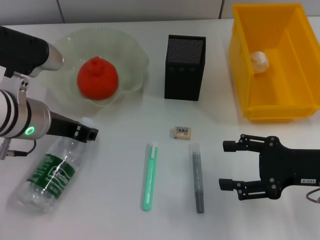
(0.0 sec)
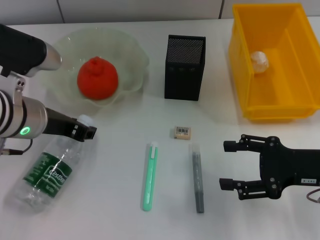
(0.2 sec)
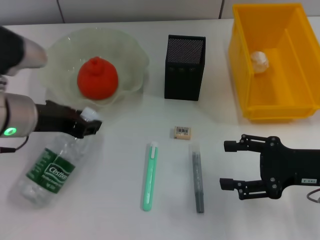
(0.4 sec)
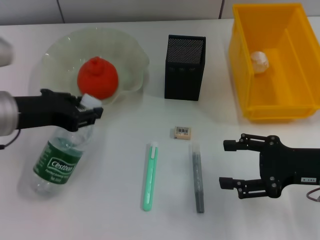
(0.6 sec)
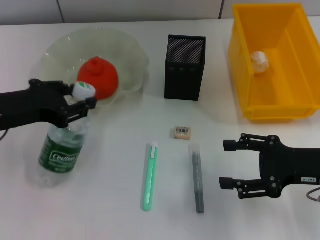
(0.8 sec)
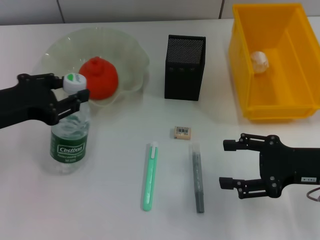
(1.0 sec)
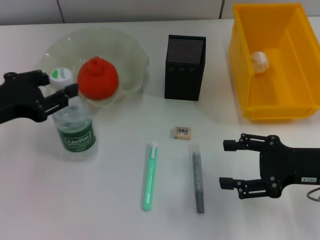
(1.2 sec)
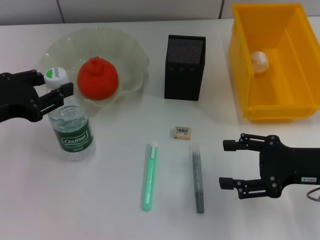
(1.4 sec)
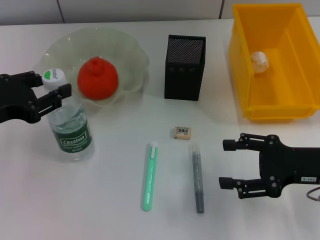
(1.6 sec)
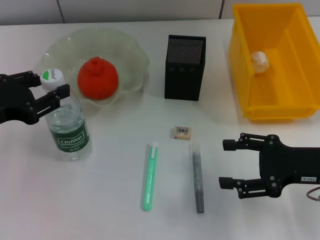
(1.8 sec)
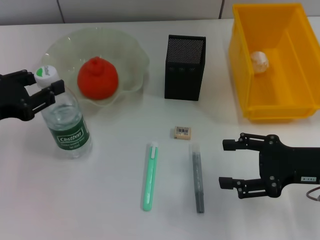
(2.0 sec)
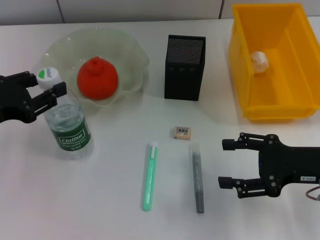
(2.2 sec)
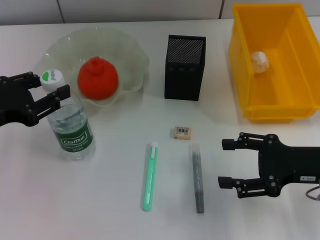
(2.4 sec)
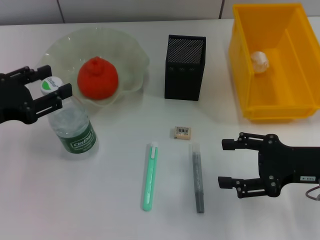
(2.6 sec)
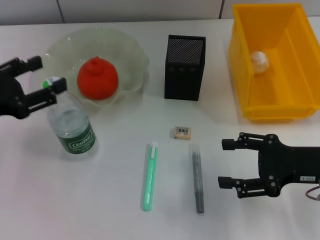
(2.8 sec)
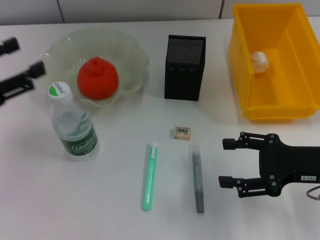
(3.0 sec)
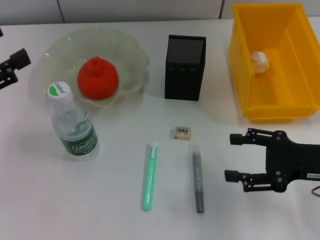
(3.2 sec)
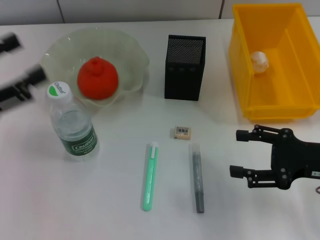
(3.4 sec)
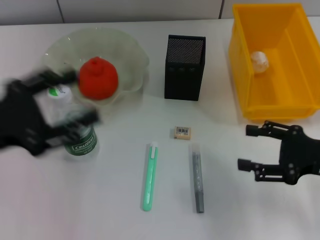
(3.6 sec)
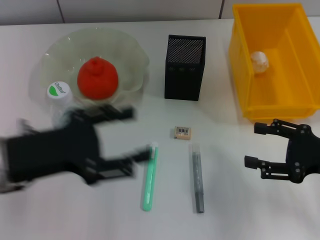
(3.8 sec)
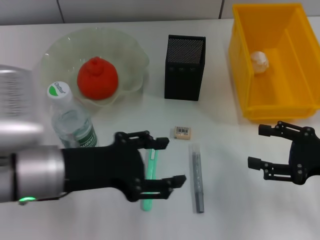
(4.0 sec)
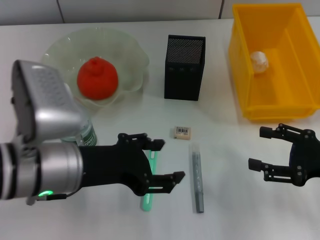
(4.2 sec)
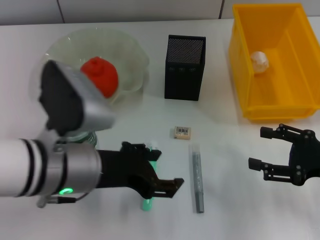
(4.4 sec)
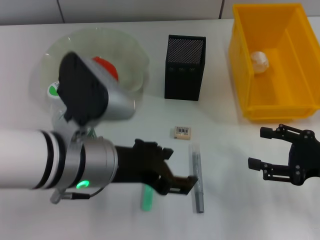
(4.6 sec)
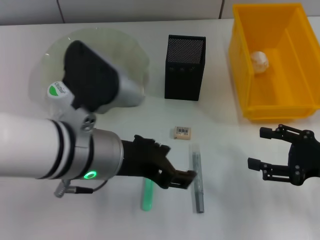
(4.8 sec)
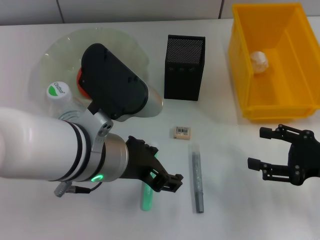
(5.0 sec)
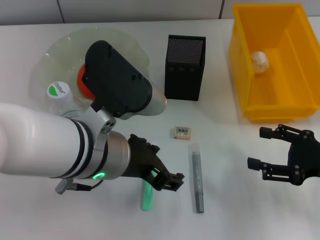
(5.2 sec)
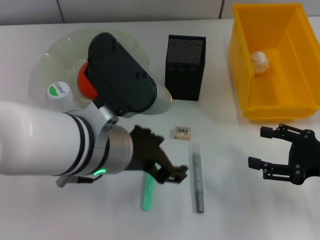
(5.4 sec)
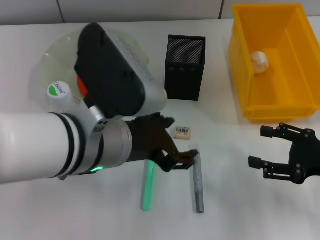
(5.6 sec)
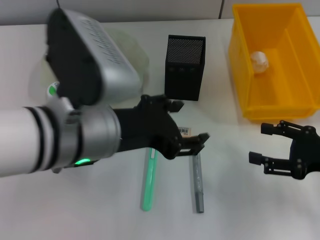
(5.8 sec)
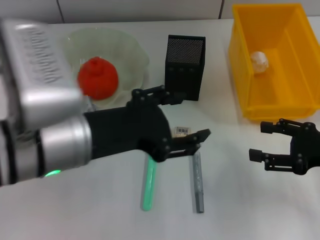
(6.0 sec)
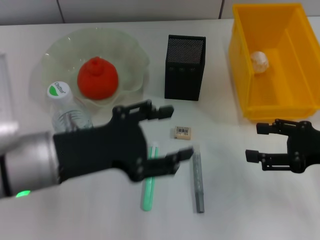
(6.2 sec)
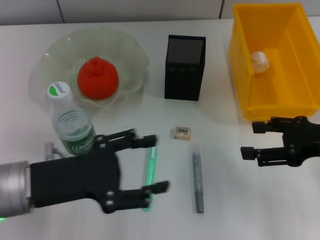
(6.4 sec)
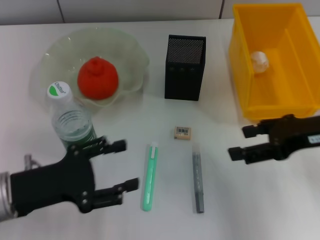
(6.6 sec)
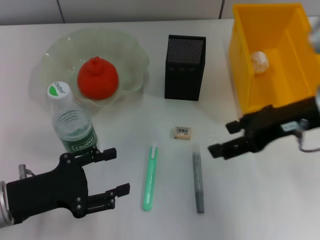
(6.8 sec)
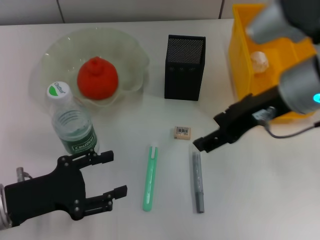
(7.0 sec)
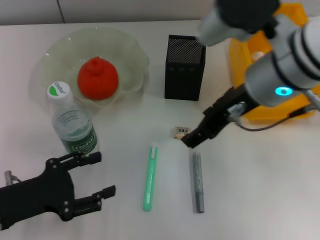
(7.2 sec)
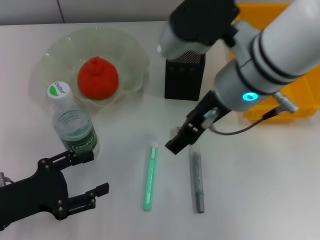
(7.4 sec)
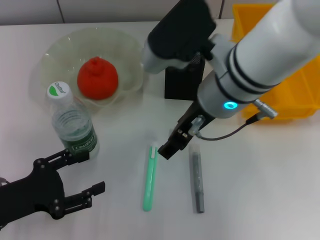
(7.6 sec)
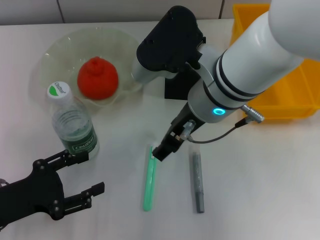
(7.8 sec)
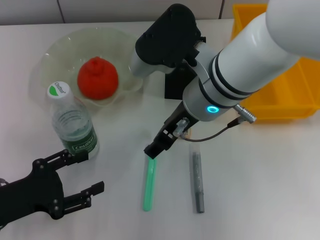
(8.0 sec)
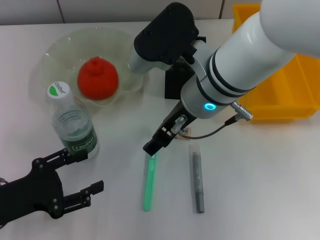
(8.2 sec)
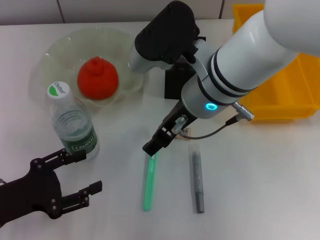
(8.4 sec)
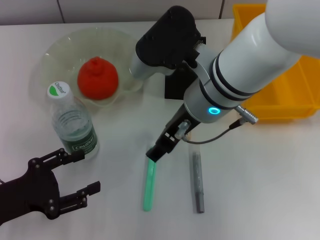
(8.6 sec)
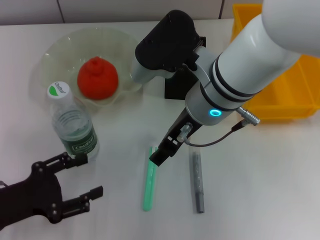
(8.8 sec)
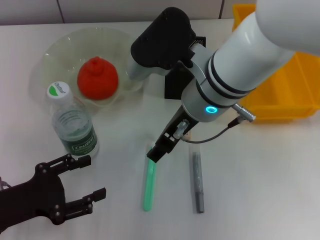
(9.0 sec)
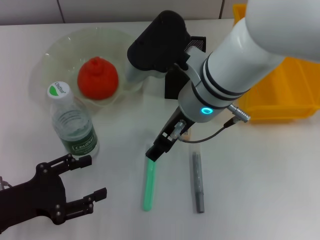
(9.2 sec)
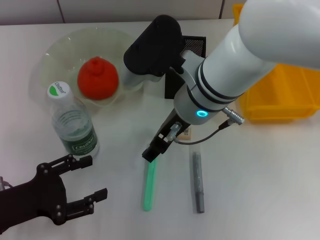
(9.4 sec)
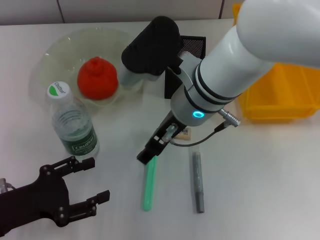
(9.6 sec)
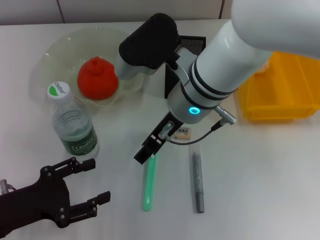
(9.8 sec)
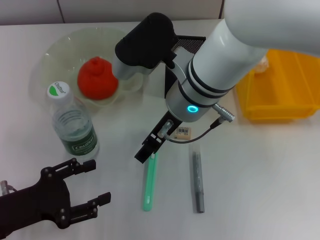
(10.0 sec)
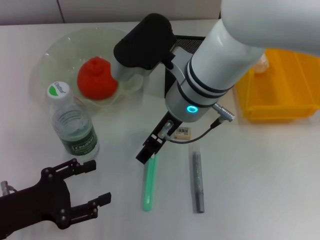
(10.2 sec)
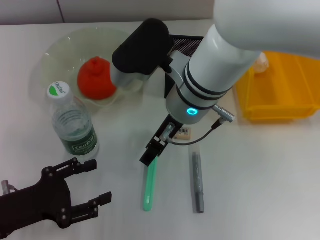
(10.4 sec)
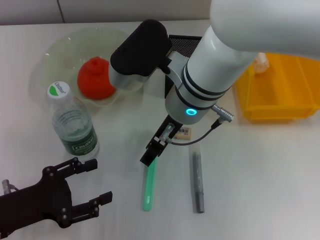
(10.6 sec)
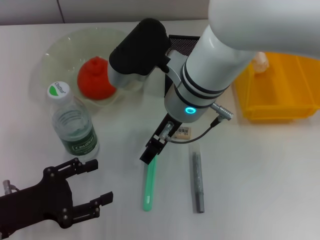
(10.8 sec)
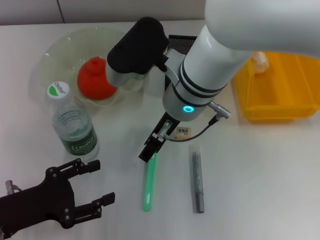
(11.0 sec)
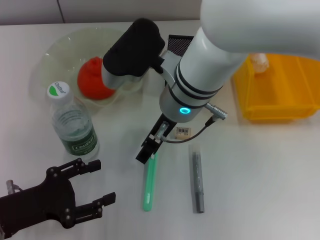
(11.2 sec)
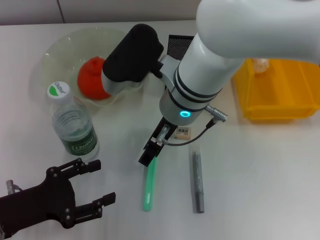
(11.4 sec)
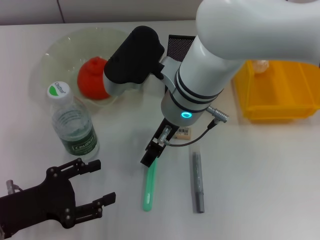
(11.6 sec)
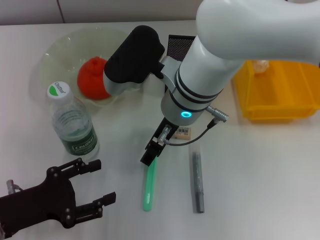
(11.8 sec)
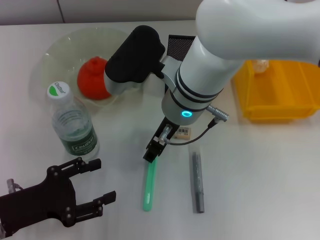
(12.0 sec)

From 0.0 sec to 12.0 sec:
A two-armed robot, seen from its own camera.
Step, from 0.0 sec to 2.4 sec: Place the water bottle on the table with the left hand.
From 0.0 sec to 1.6 sec: The left gripper goes some 10 cm to the left and backward.
From 1.6 sec to 3.0 sec: The left gripper opens its fingers.
From 3.0 sec to 4.4 sec: The left gripper heads to the right, covering approximately 20 cm.
From 6.0 sec to 7.6 sec: The left gripper moves to the left and downward, roughly 20 cm; the right gripper travels to the left and upward by approximately 25 cm.
From 7.6 sec to 10.4 sec: The grippers make only small movements.
From 10.4 sec to 12.0 sec: Both grippers stay about where they are.

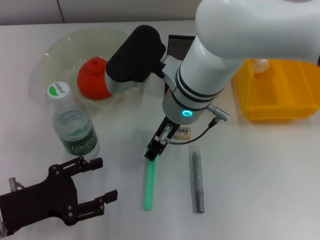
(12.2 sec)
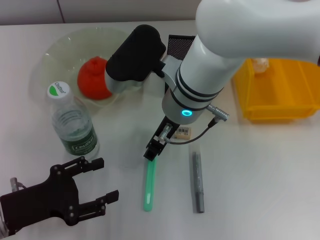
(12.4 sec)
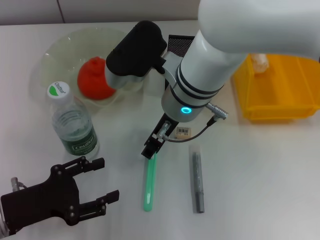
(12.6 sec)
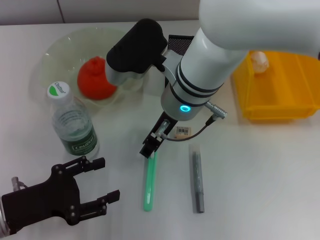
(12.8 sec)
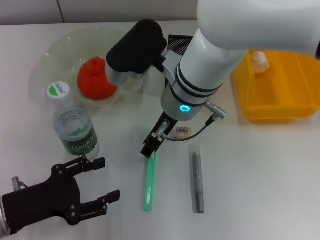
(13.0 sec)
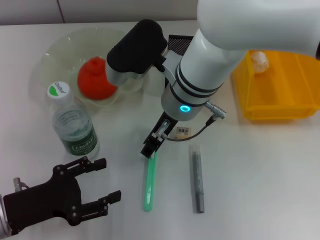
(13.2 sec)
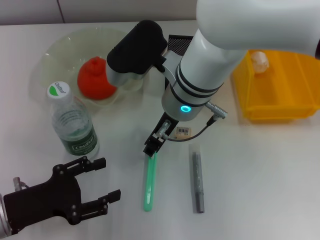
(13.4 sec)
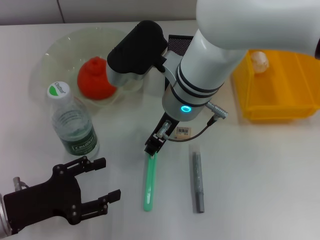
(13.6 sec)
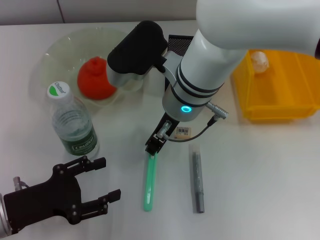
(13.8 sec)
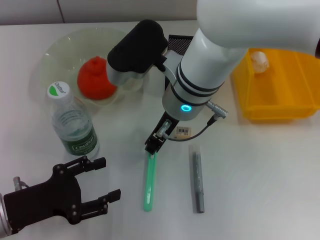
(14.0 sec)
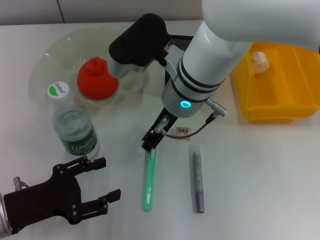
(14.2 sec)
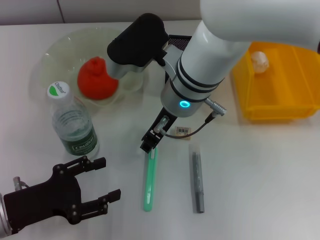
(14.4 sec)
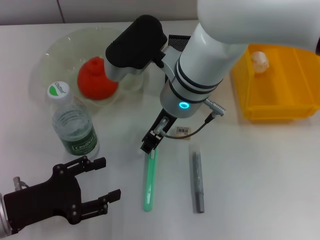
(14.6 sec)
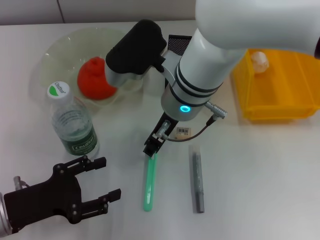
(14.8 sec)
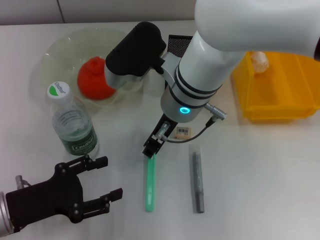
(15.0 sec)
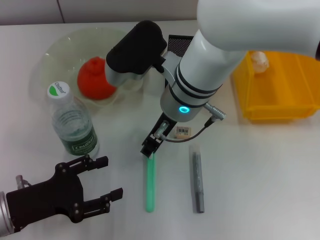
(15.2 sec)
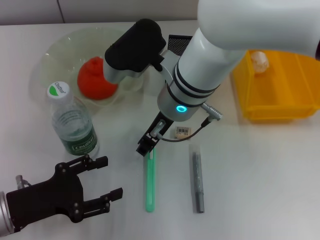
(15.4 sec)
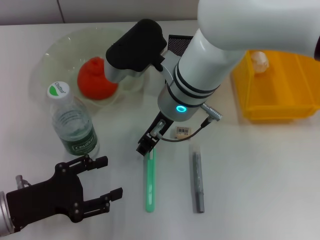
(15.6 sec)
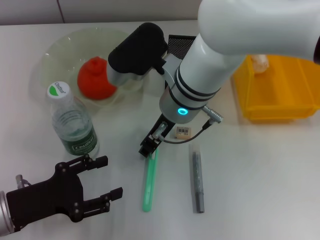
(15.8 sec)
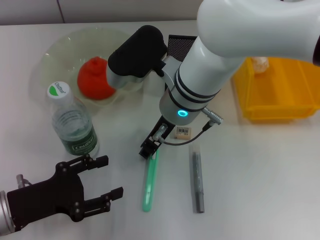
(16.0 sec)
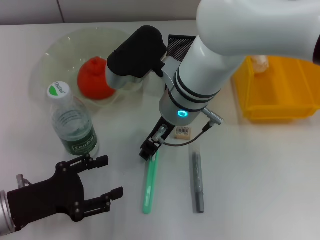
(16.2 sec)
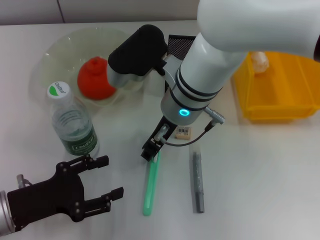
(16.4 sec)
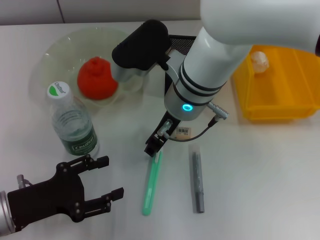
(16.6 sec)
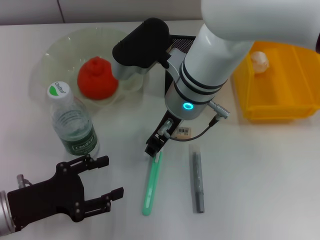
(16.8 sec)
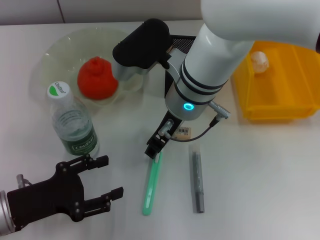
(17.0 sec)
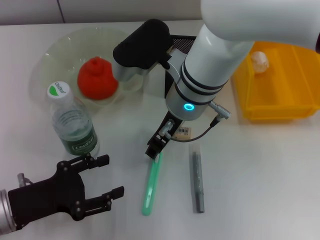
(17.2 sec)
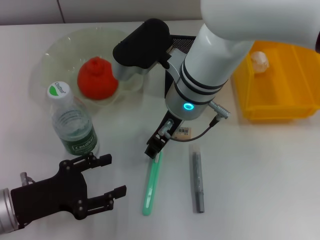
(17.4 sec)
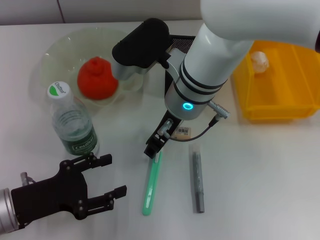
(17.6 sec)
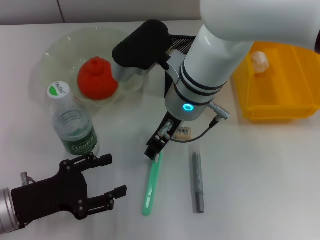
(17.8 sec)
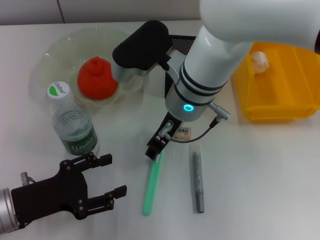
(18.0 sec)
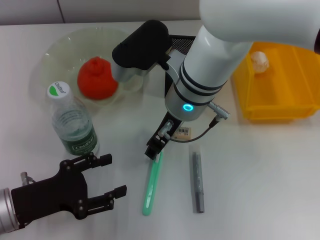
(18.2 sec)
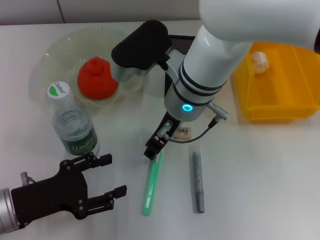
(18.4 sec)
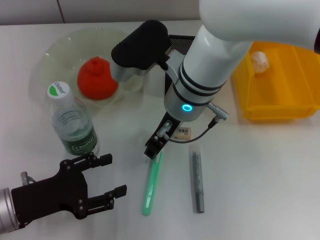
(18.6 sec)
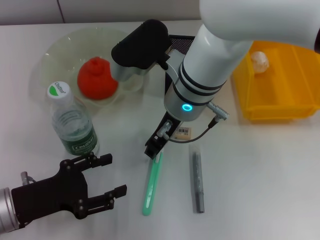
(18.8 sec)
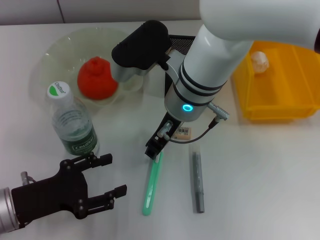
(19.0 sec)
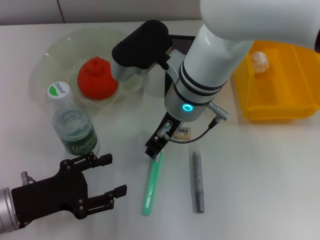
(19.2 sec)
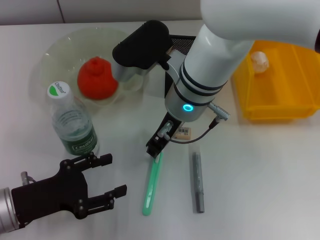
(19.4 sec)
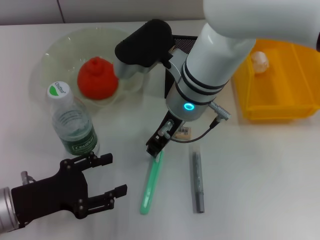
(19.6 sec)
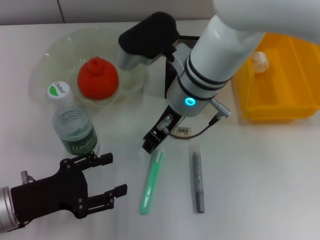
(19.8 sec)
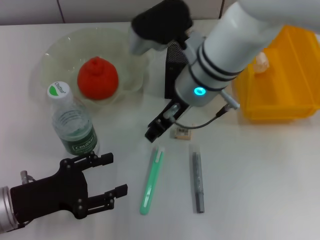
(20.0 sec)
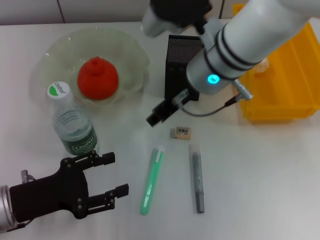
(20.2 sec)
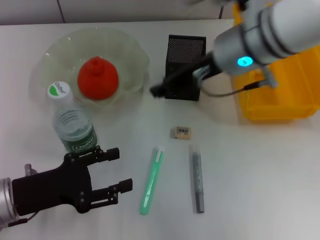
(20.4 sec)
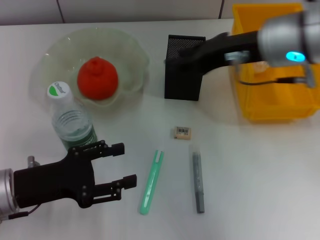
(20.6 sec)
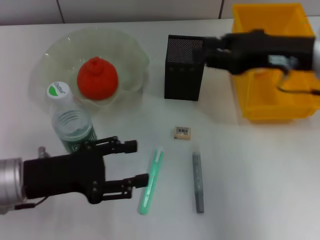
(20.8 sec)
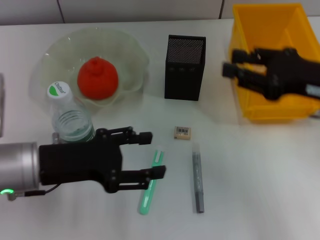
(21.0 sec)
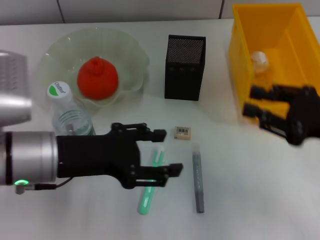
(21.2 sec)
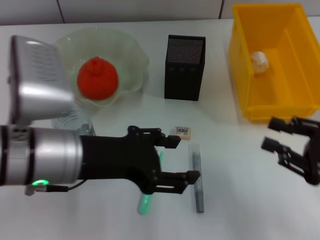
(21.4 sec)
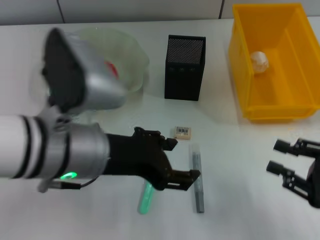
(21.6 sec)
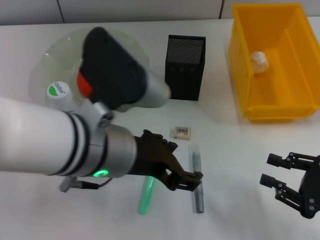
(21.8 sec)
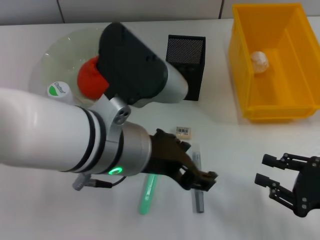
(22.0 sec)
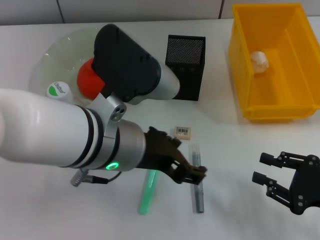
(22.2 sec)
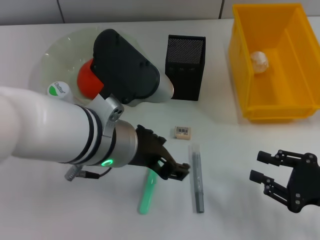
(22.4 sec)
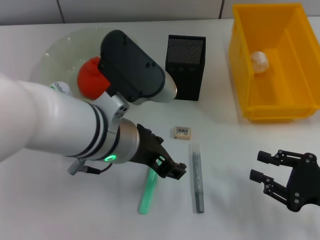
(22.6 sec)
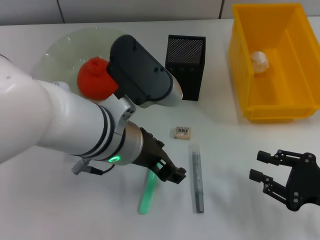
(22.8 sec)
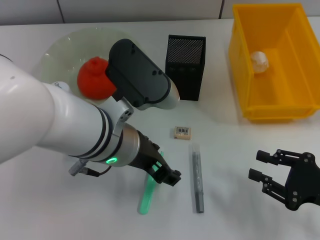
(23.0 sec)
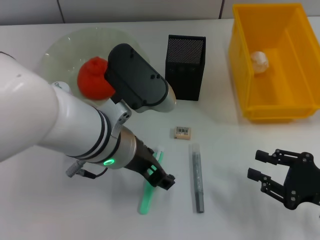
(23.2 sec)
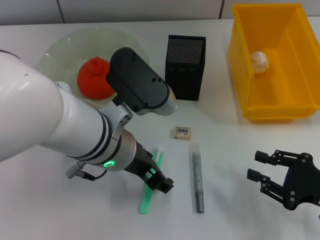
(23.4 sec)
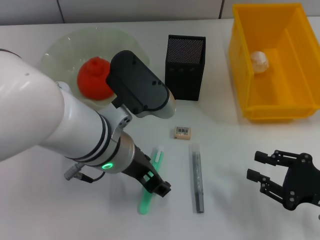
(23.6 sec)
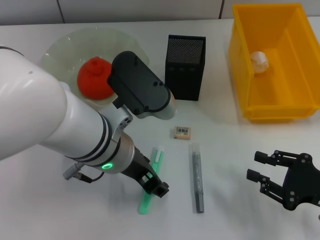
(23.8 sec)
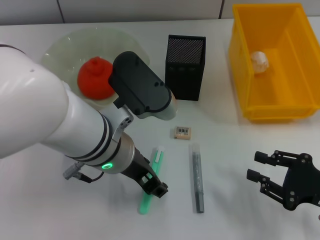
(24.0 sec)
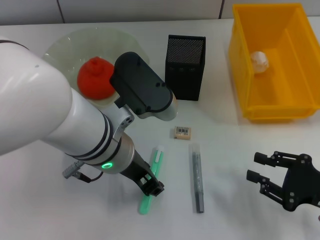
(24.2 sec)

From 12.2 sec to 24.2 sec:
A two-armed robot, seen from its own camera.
From 12.2 sec to 13.8 sec: The right gripper closes up.
From 13.8 sec to 18.2 sec: Neither gripper changes place.
From 18.2 sec to 19.8 sec: The grippers stay close to where they were, moving slightly.
From 19.8 sec to 21.2 sec: The right gripper shifts approximately 30 cm to the right and backward. Meanwhile the left gripper moves upward and to the right, about 10 cm.
From 21.2 sec to 22.6 sec: The left gripper heads to the right, covering some 10 cm; the right gripper heads downward and backward, covering about 10 cm.
From 22.6 sec to 24.2 sec: There are only small adjustments of the grippers.
